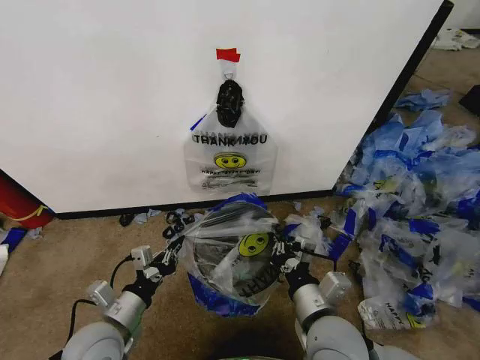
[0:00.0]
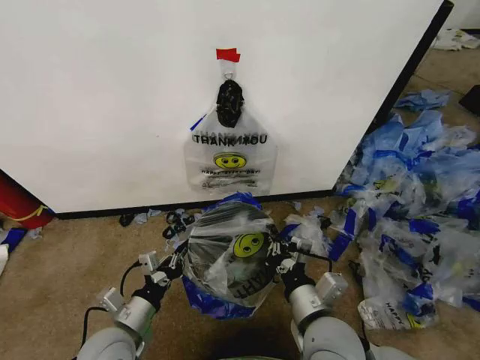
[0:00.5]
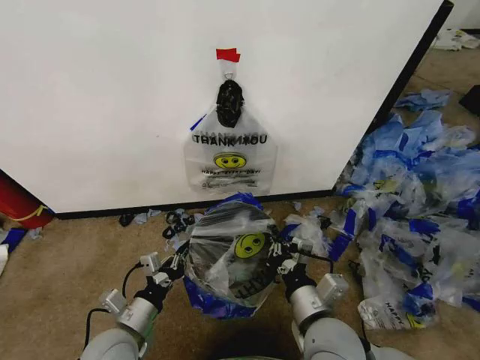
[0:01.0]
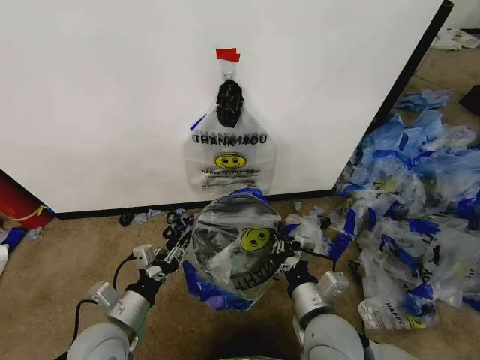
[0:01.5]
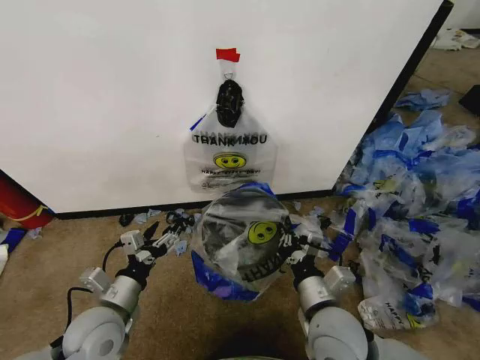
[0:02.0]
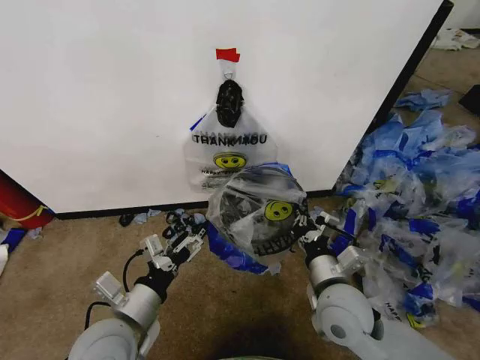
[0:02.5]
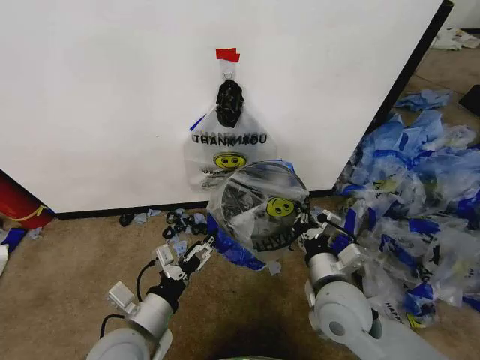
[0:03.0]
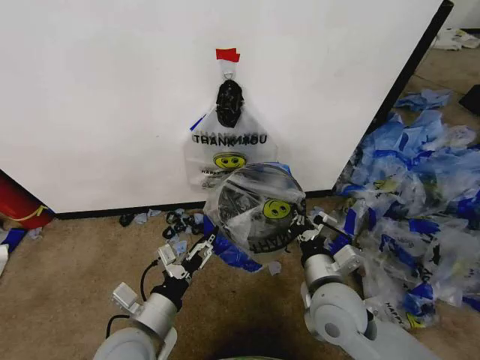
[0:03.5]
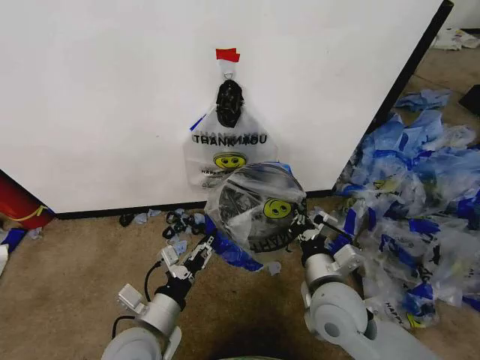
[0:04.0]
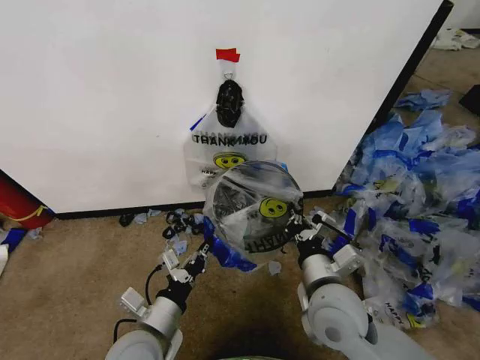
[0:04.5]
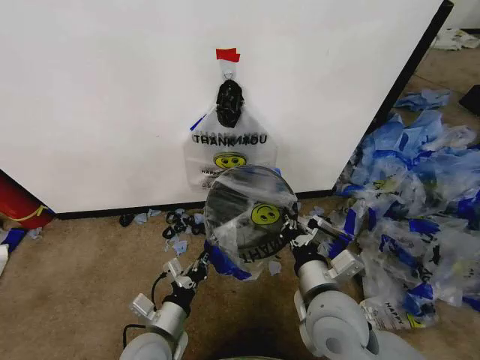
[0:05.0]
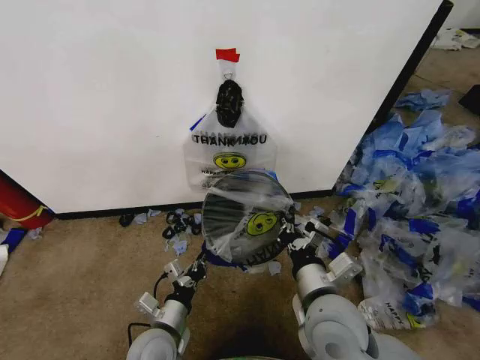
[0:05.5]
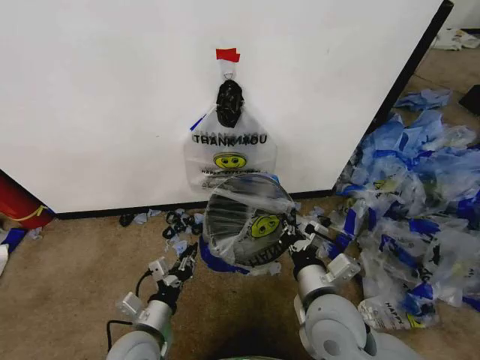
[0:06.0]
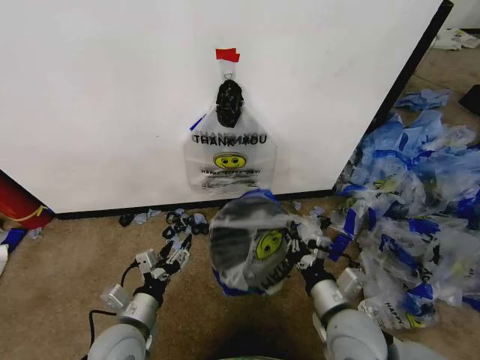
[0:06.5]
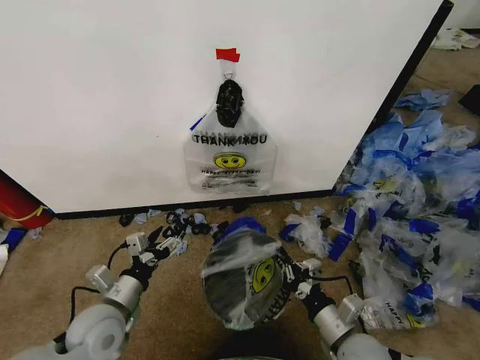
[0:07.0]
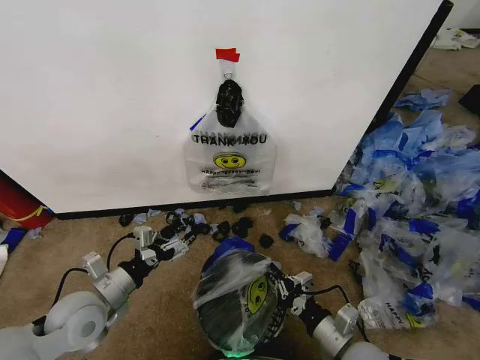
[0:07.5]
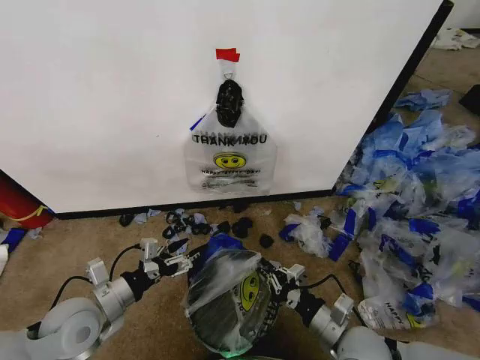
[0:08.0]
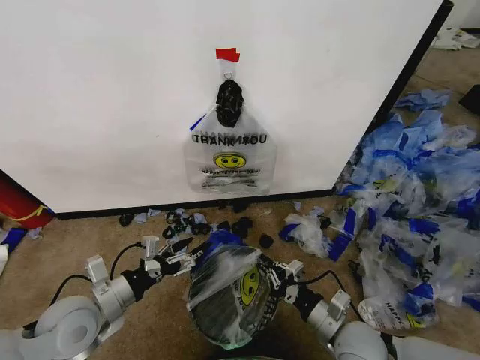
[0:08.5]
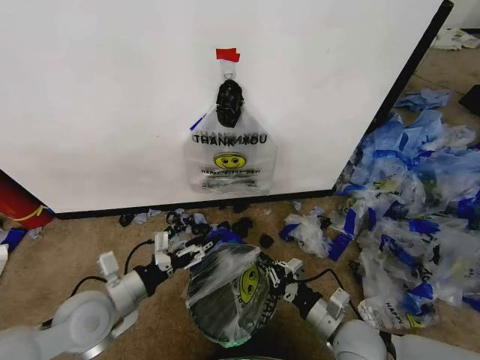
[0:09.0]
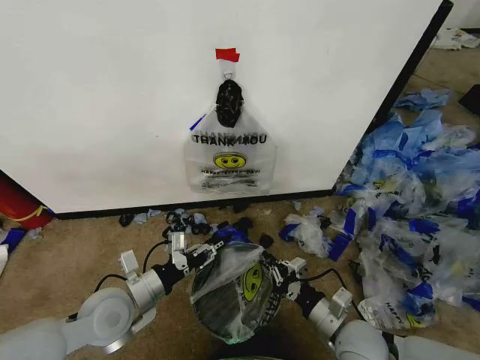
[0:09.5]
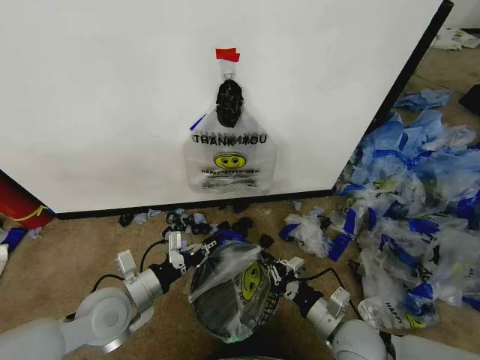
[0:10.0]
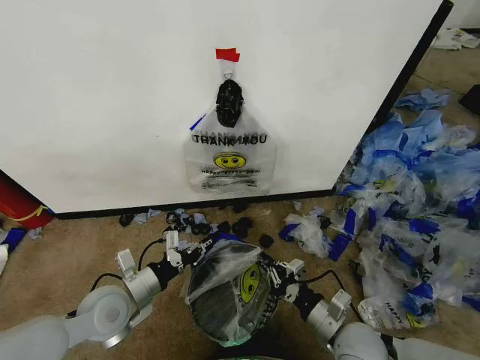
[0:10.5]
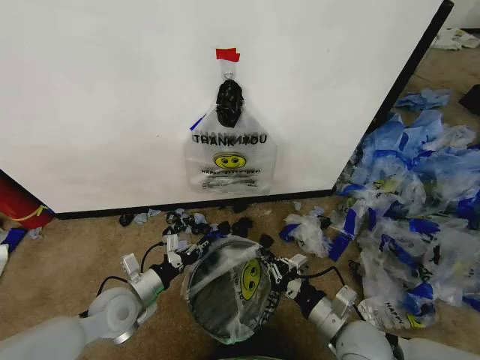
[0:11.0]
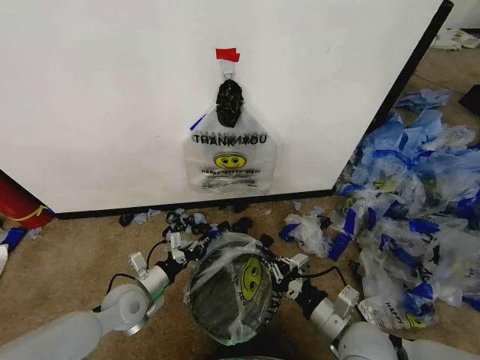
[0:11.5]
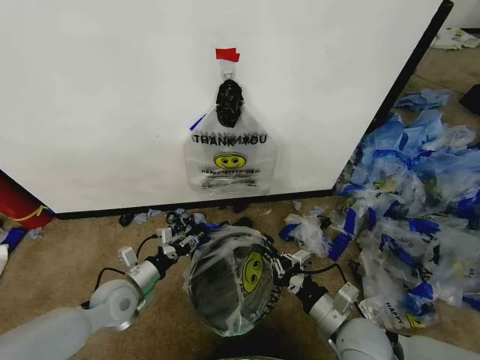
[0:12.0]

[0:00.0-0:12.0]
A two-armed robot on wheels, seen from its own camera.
Task of the whole recording: Pick up the garbage bag from the wall and place it over the trash bin.
0:00.0 to 0:02.0: The left gripper opens up.
0:02.0 to 0:04.0: The left gripper heads to the right, covering roughly 10 cm, and closes up.
0:04.0 to 0:06.0: The left gripper heads downward, covering about 5 cm.
0:06.0 to 0:08.0: The right gripper goes approximately 15 cm downward and to the right. Meanwhile the left gripper goes about 15 cm to the left and upward, and opens up.
0:08.0 to 0:10.0: The left gripper shifts roughly 5 cm to the right, and closes up.
0:10.0 to 0:12.0: The left gripper travels downward and forward by some 10 cm.

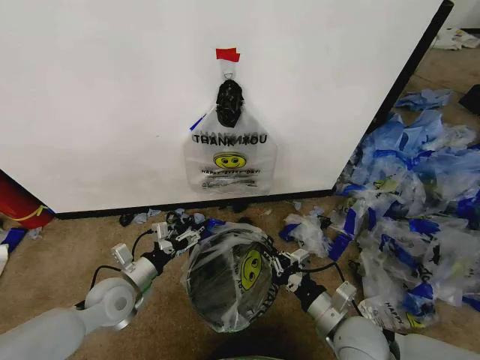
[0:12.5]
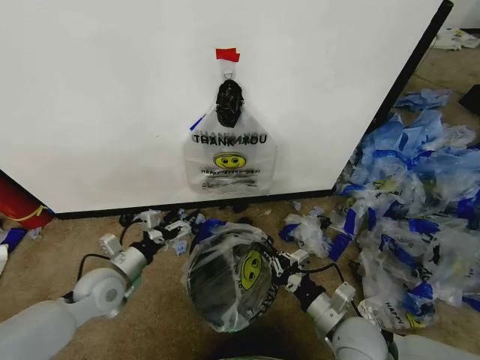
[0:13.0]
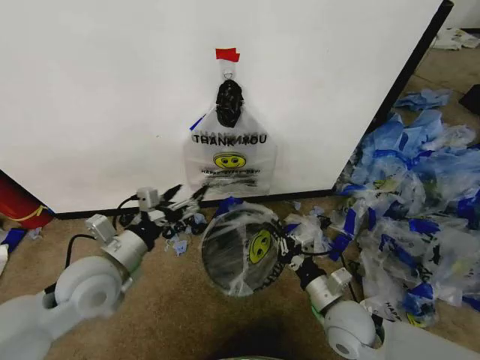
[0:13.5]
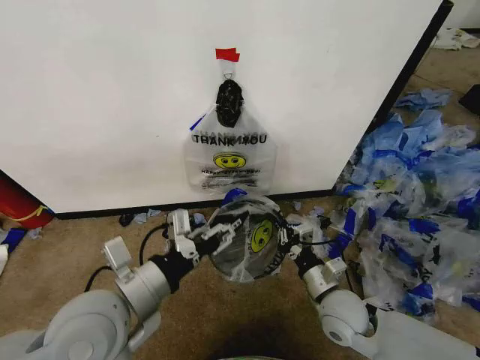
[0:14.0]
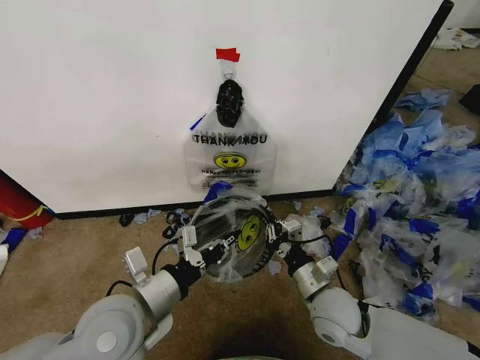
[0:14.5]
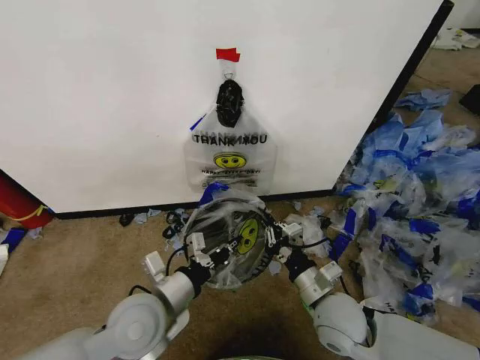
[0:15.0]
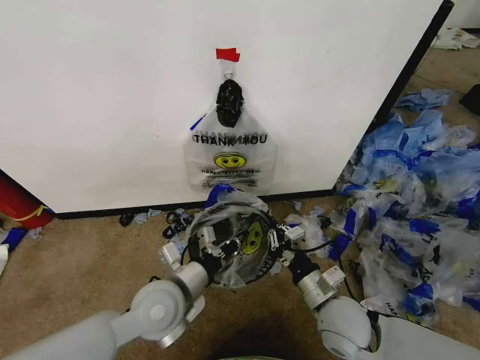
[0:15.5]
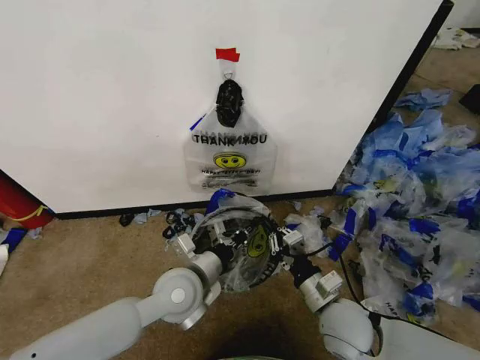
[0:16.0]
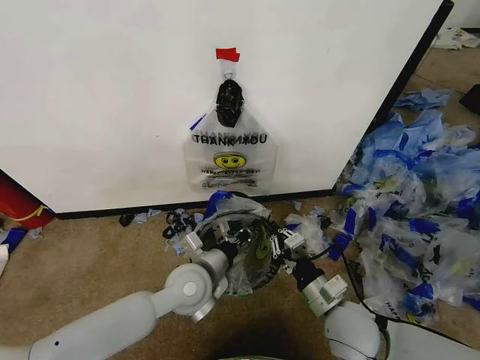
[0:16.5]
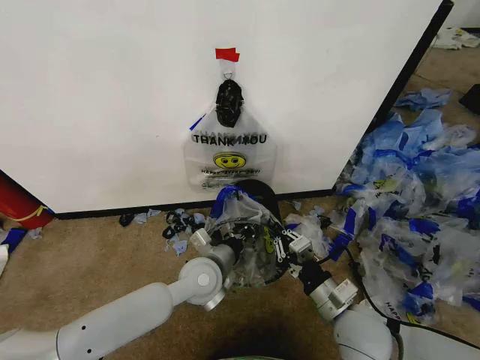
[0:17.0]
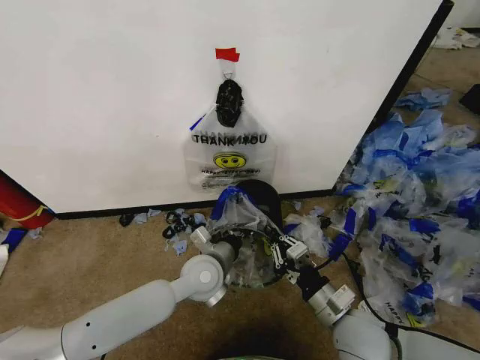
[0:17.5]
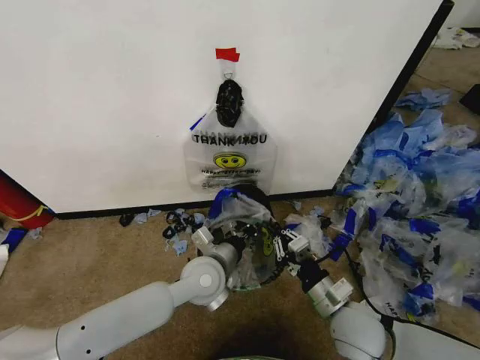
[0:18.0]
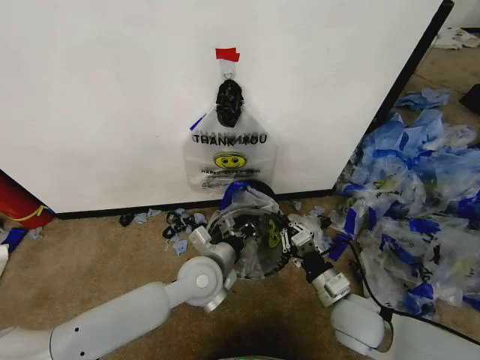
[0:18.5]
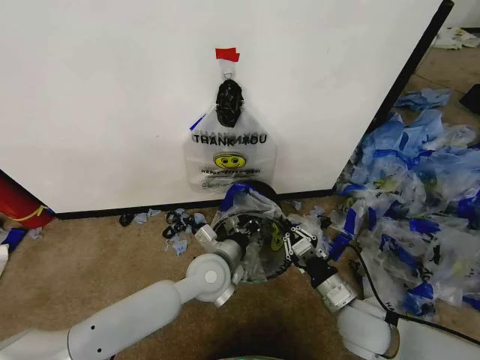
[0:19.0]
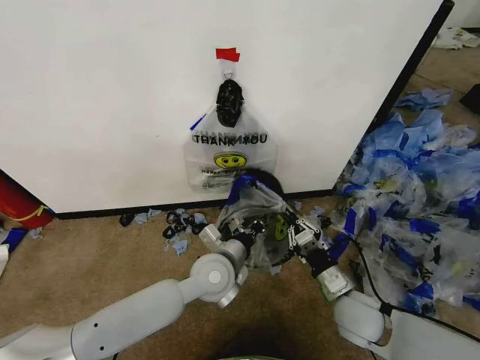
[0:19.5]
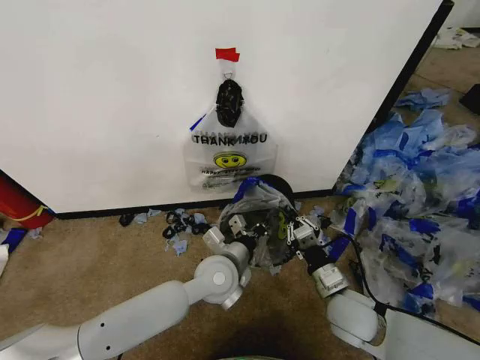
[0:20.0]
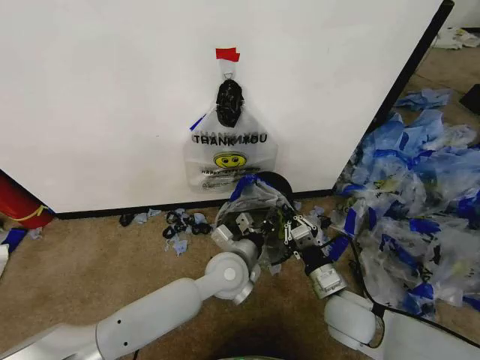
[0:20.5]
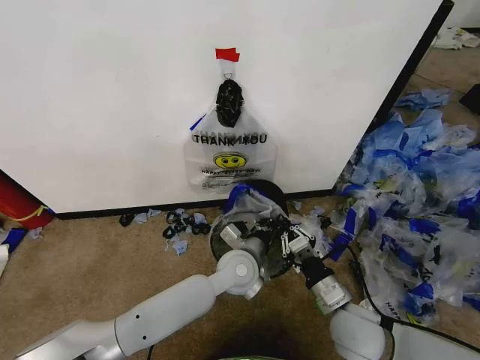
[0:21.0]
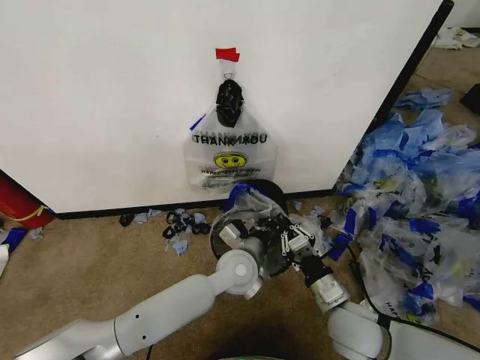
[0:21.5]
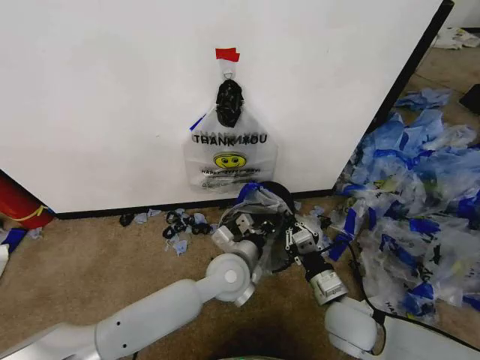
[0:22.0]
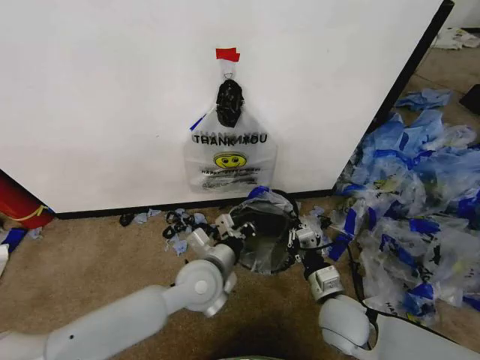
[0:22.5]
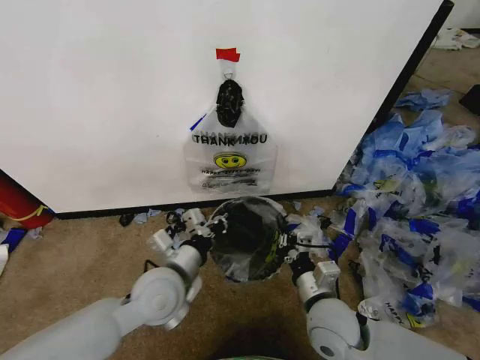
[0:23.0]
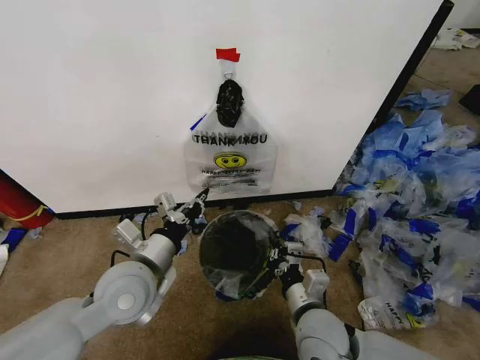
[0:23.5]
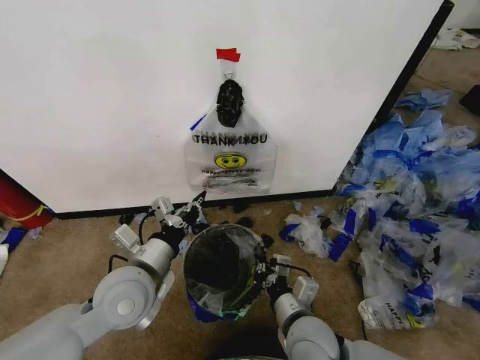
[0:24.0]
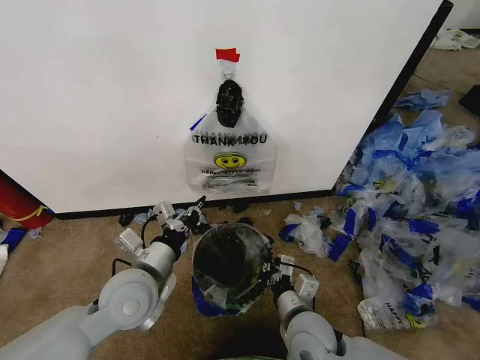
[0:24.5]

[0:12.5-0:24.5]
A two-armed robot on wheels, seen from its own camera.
Task of the whole recording: Pick up the garbage bag from the wall and place it over the trash bin.
0:12.5 to 0:14.5: The right gripper heads forward, covering about 5 cm. Meanwhile the left gripper goes about 20 cm upward, to the right and backward, and closes.
0:14.5 to 0:16.5: The left gripper heads forward, to the right and downward, covering approximately 15 cm.
0:16.5 to 0:18.5: The grippers move only a little.
0:18.5 to 0:20.5: The left gripper shifts approximately 5 cm to the right.
0:20.5 to 0:22.5: The left gripper shifts approximately 5 cm to the left.
0:22.5 to 0:24.5: The right gripper heads to the left, covering roughly 5 cm, while the left gripper shifts approximately 10 cm to the left.

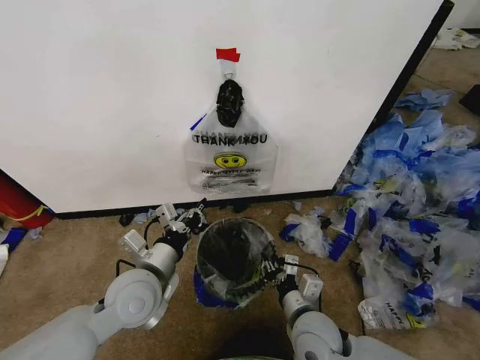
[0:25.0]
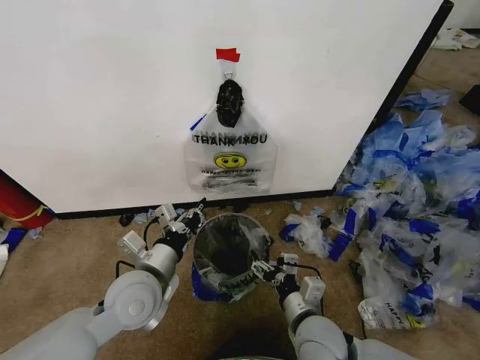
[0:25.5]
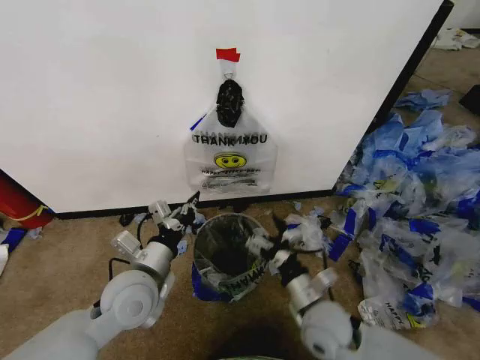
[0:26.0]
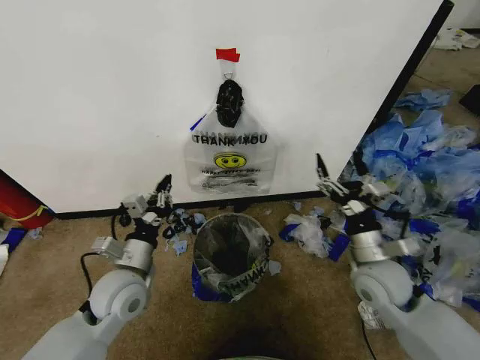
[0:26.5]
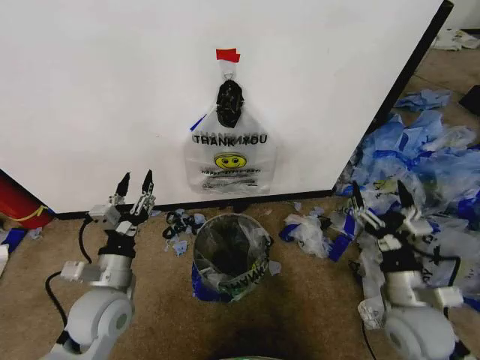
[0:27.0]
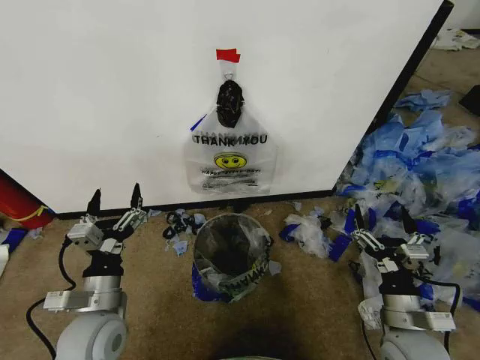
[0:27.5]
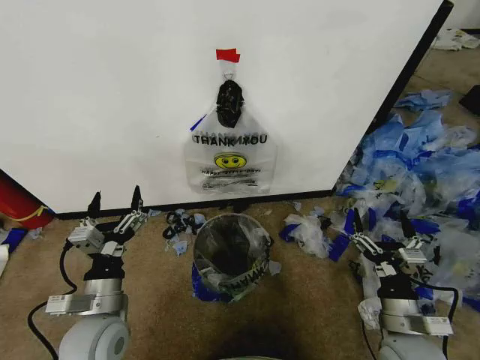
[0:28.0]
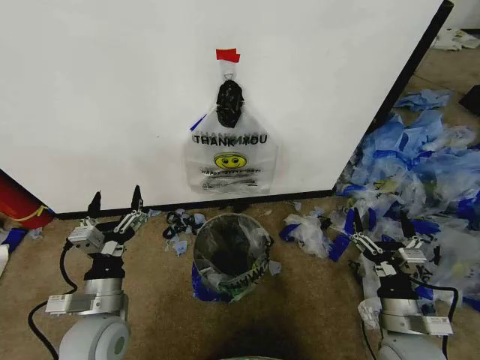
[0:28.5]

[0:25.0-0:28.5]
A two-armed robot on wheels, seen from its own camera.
Task of the whole recording: Pick up the garbage bag from the wall and place it over the trash bin.
0:25.0 to 0:27.0: The left gripper moves to the left, about 5 cm, and opens up, while the right gripper heads to the right, covering about 15 cm, and opens its fingers.
0:27.0 to 0:28.5: The grippers stay close to where they were, moving slightly.
